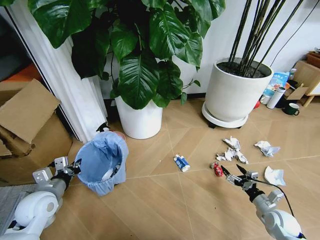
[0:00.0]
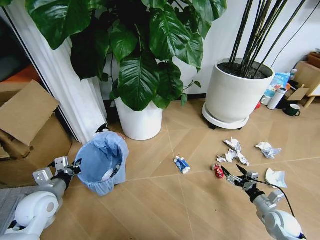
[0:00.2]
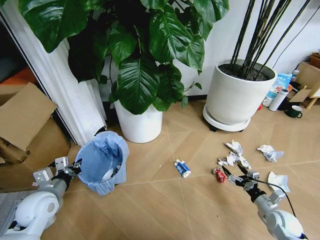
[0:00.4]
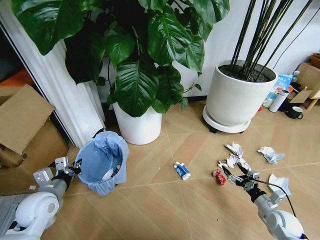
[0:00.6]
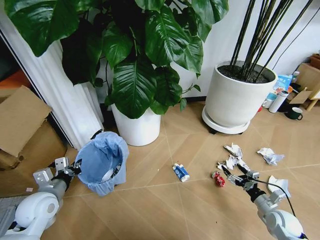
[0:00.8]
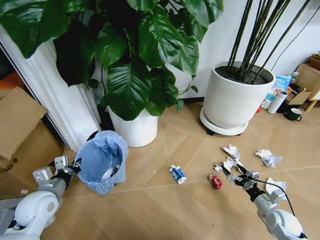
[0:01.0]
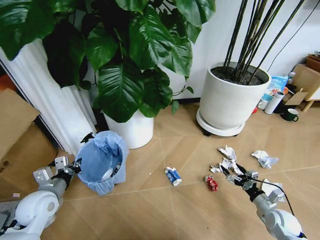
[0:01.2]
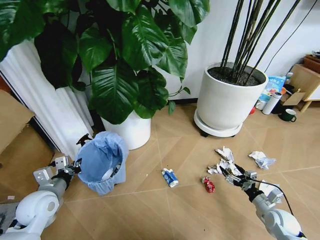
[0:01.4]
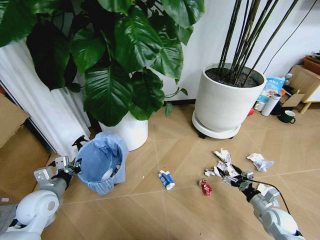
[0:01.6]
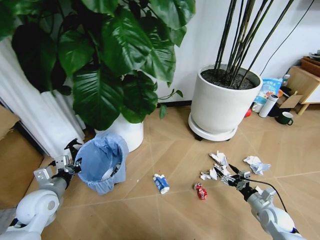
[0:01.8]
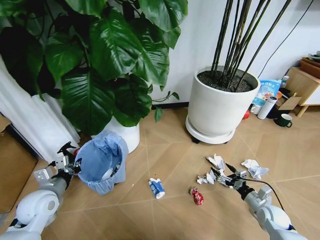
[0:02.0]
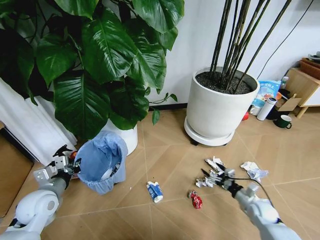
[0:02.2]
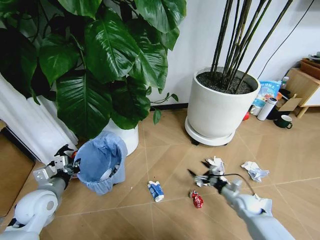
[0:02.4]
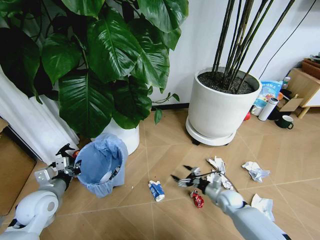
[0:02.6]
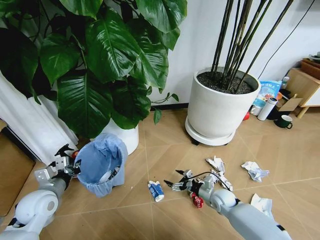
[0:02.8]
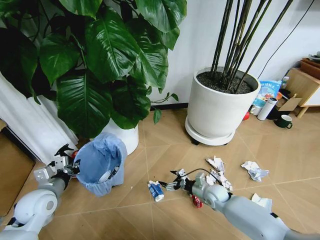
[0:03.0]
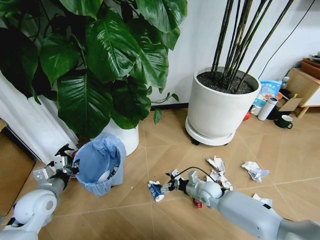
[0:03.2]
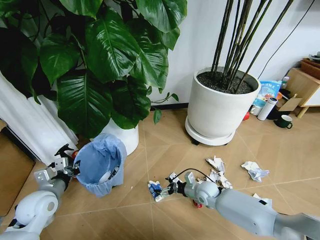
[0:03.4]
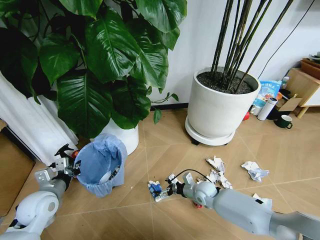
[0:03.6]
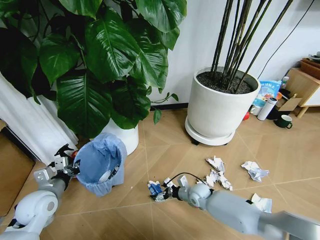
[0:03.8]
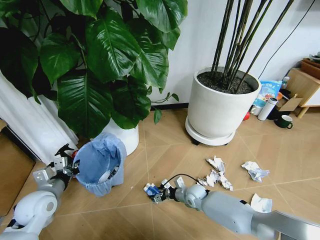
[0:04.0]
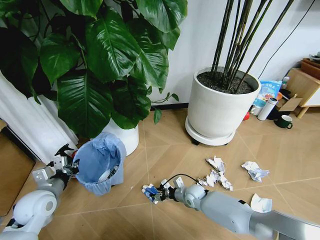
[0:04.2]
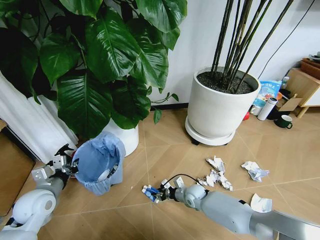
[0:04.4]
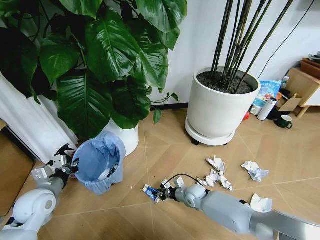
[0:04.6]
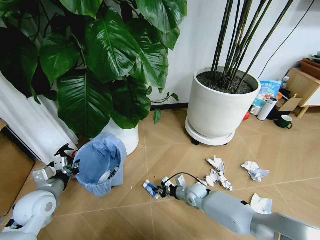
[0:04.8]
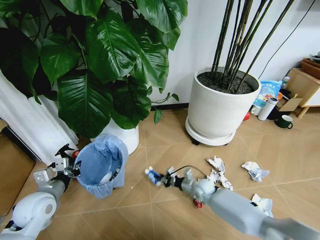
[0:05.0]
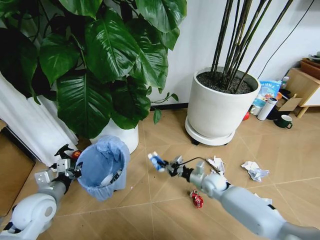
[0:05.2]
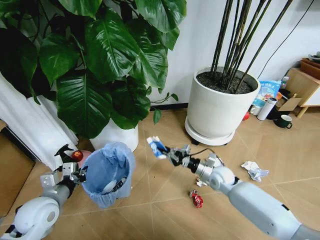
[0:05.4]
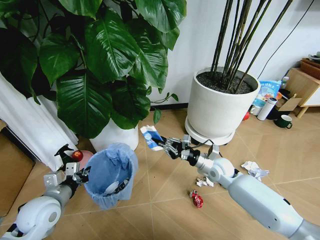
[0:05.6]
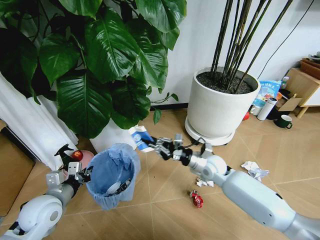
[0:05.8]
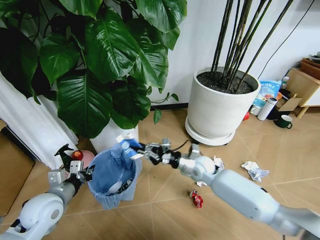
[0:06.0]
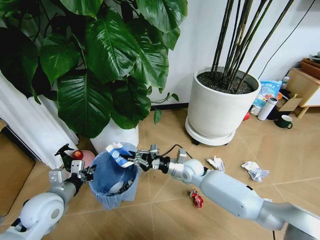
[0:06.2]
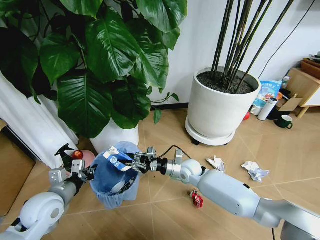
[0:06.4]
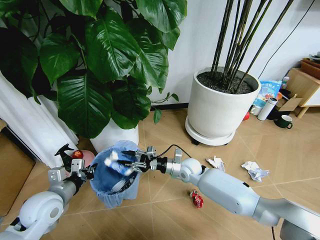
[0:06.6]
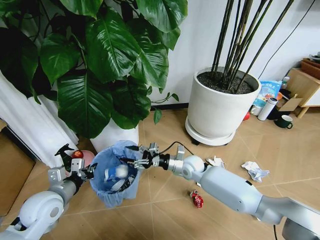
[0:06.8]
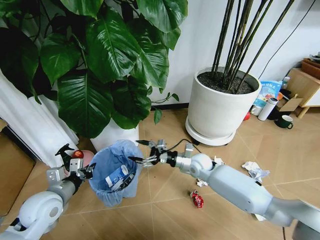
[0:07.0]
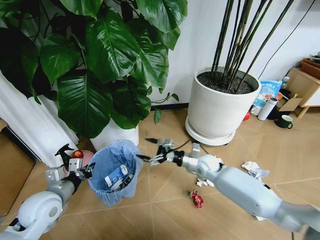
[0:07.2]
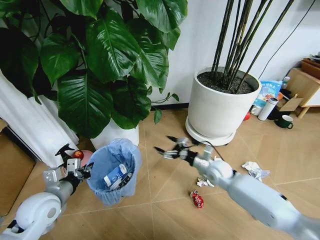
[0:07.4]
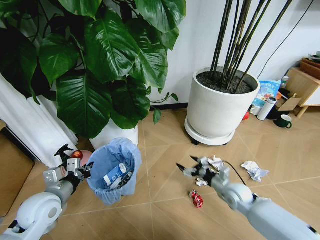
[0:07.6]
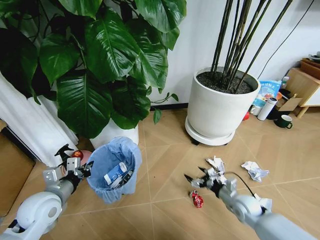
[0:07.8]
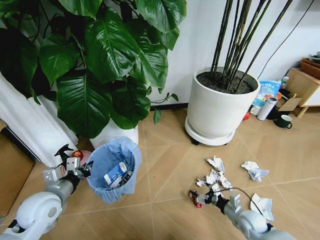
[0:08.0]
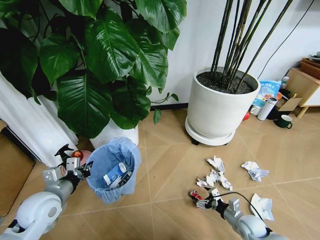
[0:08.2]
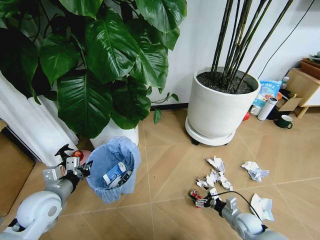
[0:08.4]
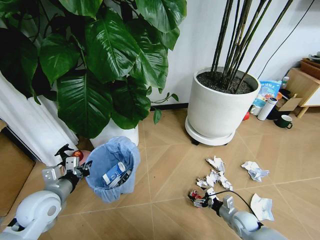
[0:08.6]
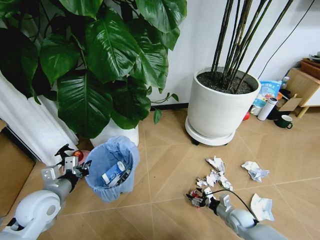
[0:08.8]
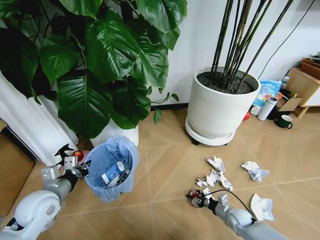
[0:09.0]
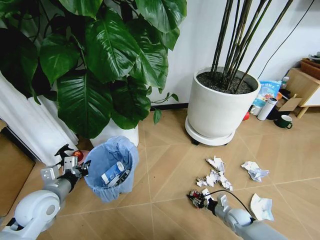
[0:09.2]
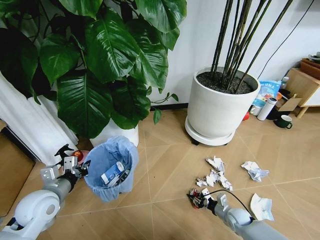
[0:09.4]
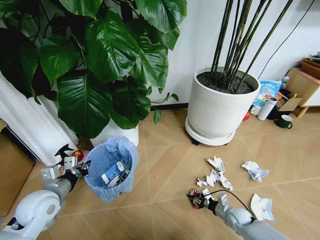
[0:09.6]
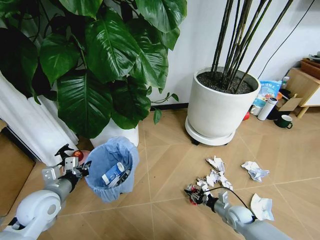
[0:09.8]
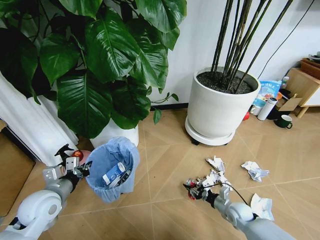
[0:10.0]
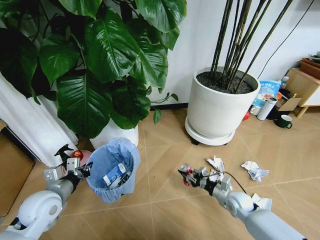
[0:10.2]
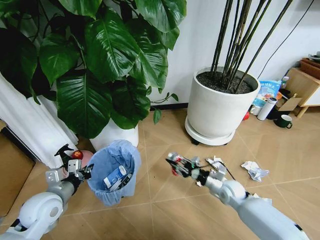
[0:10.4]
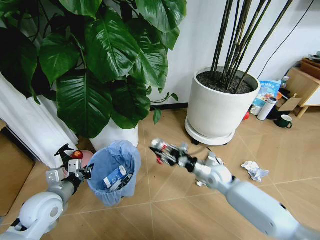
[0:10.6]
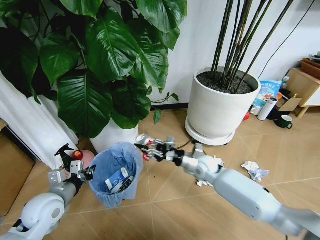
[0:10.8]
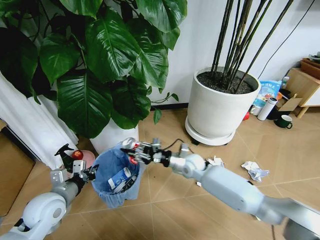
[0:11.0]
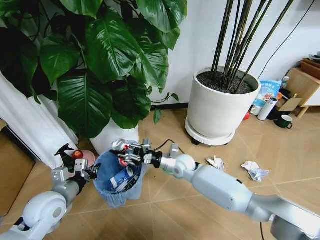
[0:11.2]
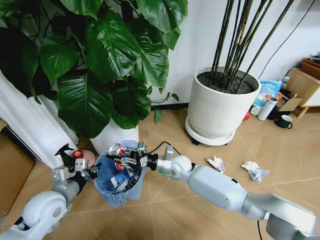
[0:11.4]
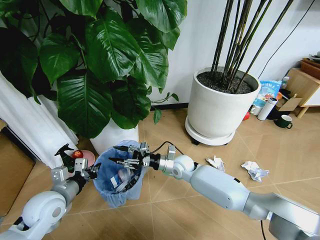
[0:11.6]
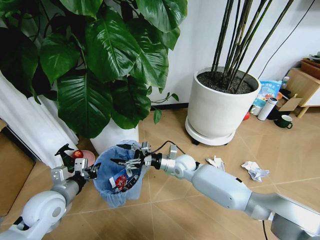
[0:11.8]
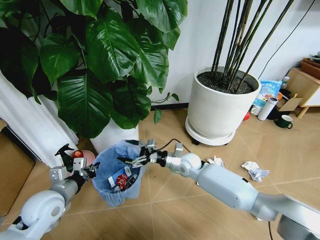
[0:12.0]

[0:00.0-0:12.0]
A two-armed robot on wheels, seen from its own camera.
Task of the whole recording: Pick up the trash bin and place the garbage on the floor into it.
0:01.6 to 0:03.0: The right gripper travels to the left and forward by some 25 cm.
0:03.0 to 0:04.4: The right gripper is displaced to the left by approximately 10 cm, and closes its fingers.
0:04.4 to 0:06.0: The right gripper is displaced upward by approximately 20 cm.
0:06.0 to 0:07.6: The right gripper moves to the right, backward and downward, about 15 cm, and opens.
0:07.6 to 0:09.0: The right gripper shifts about 15 cm downward and backward, and closes up.
0:09.0 to 0:10.4: The right gripper is displaced upward and forward by some 10 cm.
0:10.4 to 0:12.0: The right gripper travels to the left, forward and upward by approximately 20 cm, and opens up.

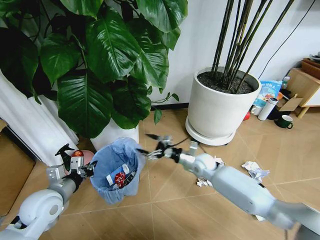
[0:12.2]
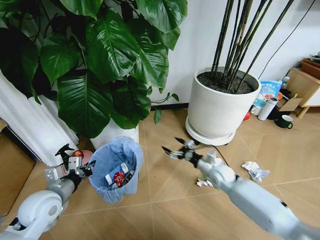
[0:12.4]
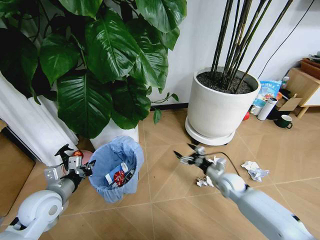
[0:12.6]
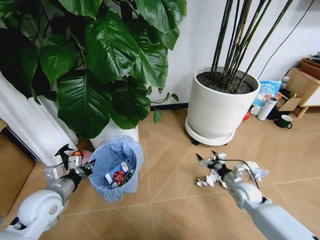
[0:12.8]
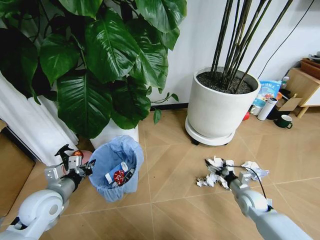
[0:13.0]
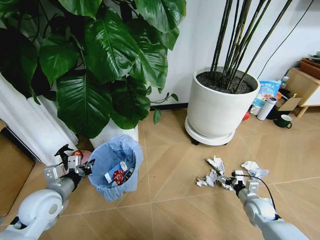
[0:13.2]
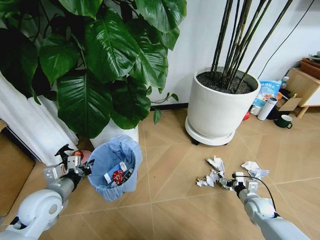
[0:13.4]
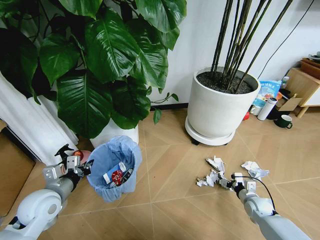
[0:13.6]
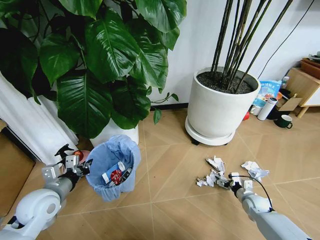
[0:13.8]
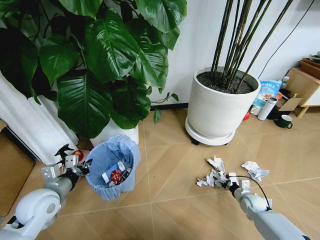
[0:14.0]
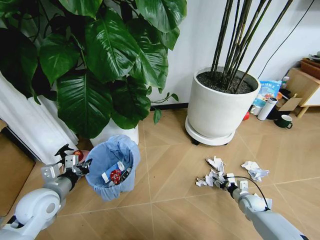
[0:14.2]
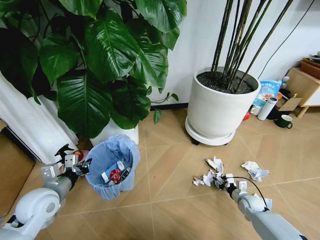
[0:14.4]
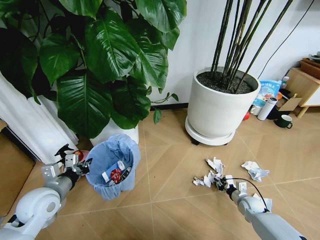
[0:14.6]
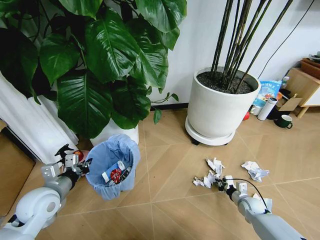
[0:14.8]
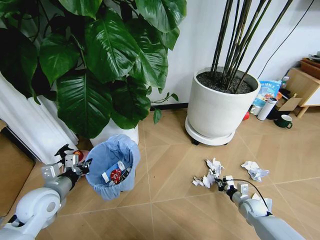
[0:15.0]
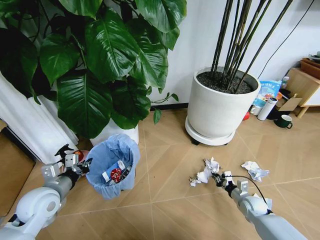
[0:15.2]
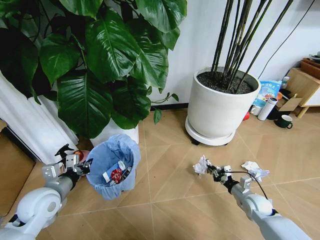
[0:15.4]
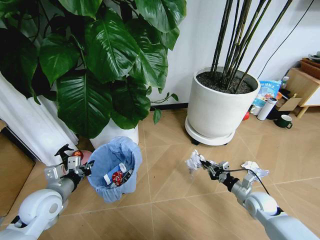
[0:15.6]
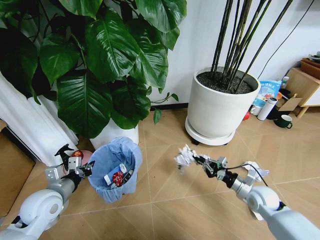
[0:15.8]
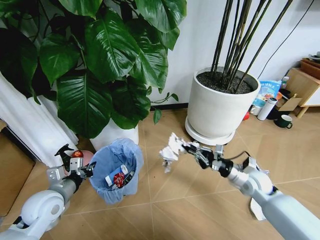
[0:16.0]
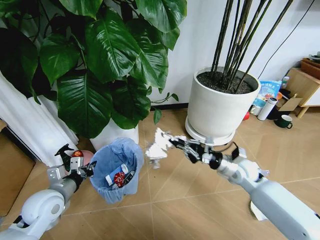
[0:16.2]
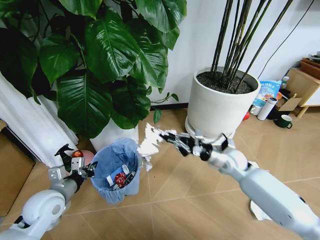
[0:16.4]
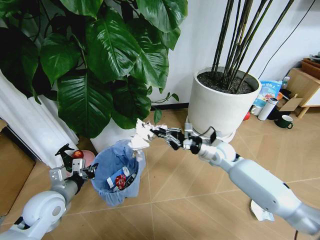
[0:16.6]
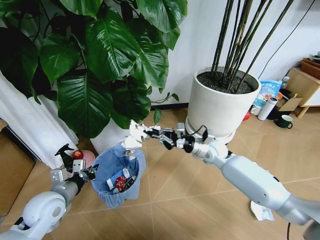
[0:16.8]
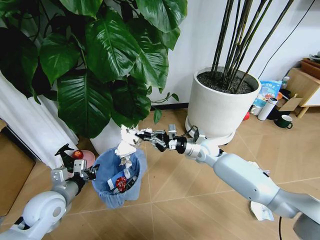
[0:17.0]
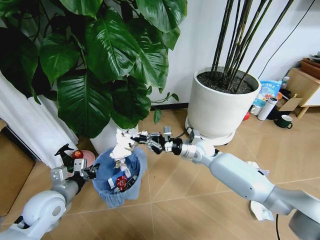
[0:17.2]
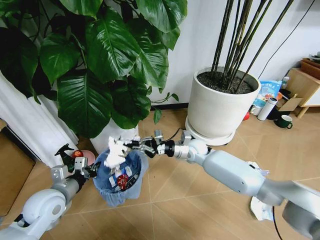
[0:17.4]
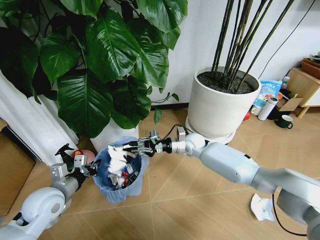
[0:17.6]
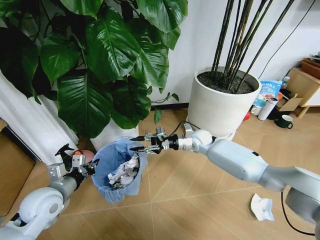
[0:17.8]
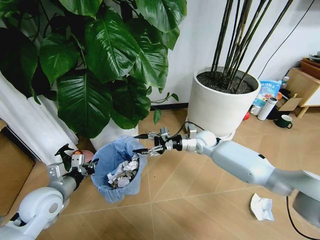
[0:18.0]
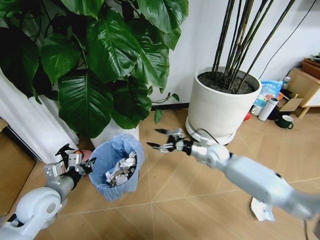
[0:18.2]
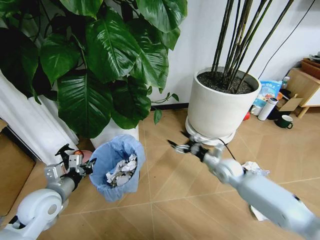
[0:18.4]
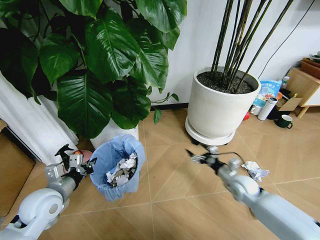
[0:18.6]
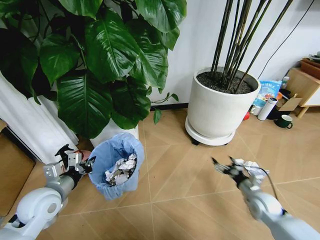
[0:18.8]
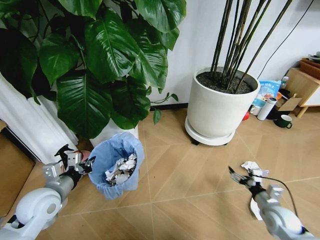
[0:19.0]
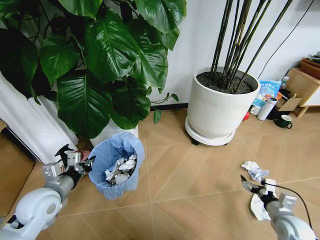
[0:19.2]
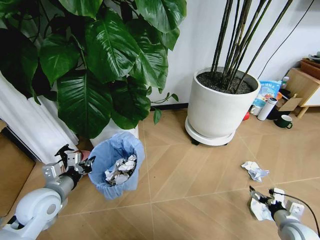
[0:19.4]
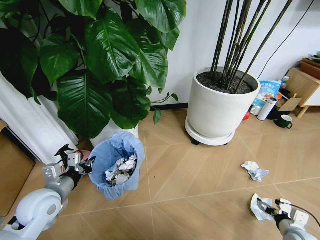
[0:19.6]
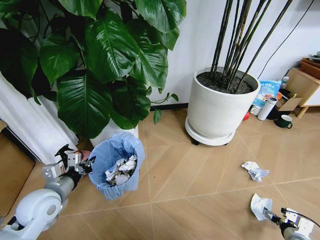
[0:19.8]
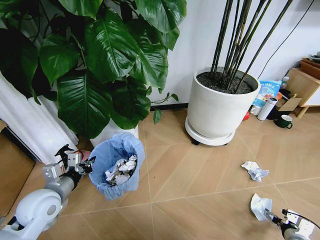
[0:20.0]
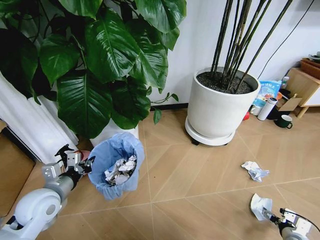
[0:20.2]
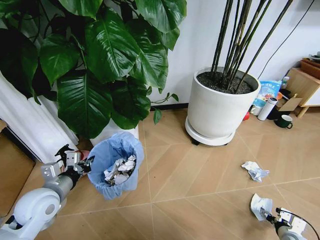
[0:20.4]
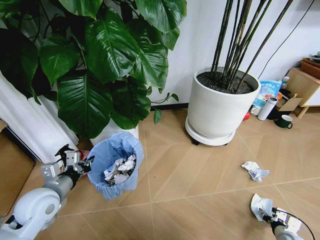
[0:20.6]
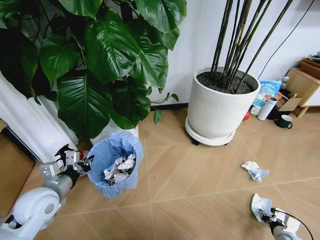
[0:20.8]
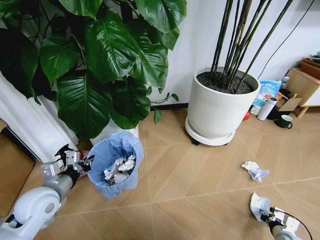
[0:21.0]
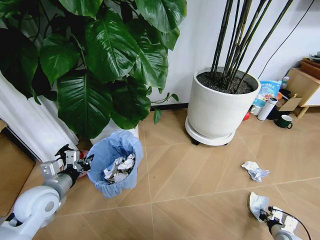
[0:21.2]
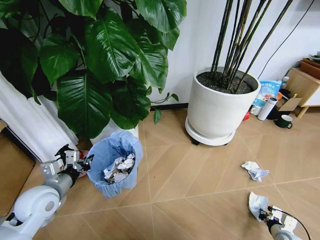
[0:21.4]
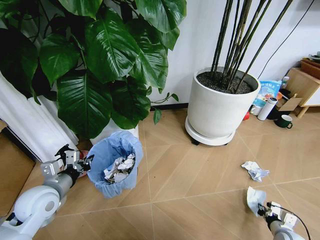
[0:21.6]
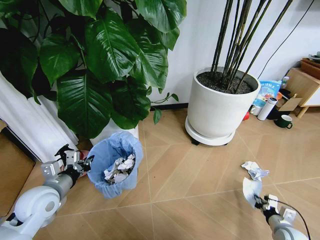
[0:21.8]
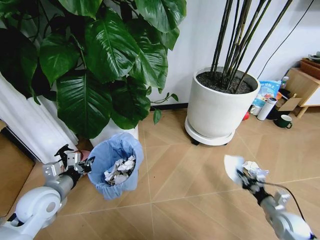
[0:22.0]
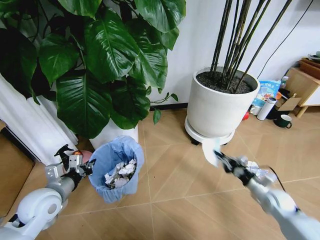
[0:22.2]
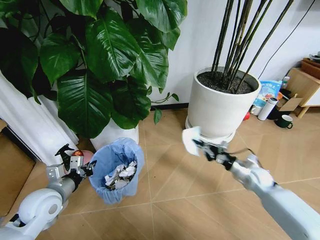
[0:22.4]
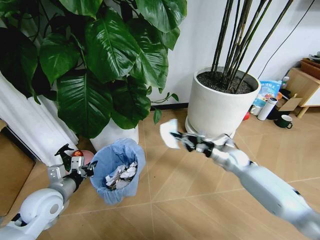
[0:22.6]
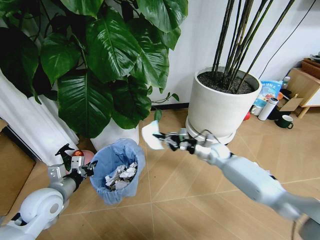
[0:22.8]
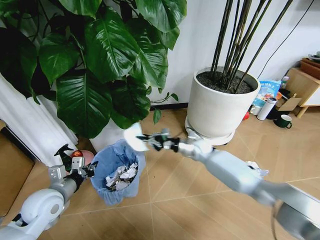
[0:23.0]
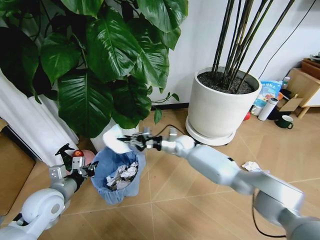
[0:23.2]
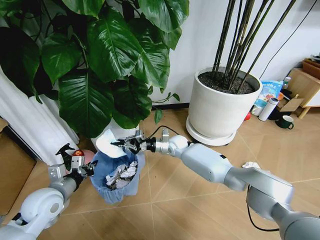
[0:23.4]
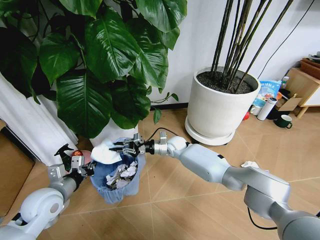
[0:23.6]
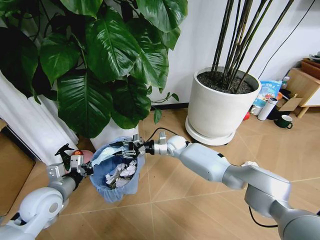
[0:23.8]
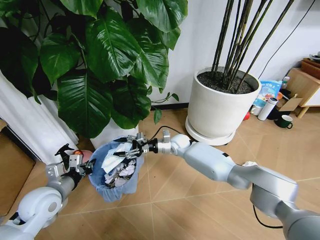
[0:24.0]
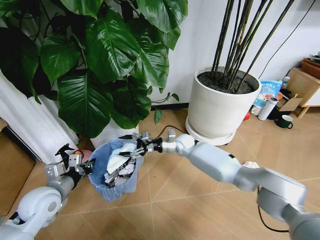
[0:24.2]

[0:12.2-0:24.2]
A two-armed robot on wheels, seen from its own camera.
Task of the whole recording: Pick up the trash bin and place the garbage on the floor into it.
0:12.2 to 0:13.8: The right gripper heads to the right, downward and backward, covering approximately 30 cm.
0:13.8 to 0:15.2: The right gripper closes up.
0:15.2 to 0:16.6: The right gripper goes approximately 30 cm upward, to the left and forward.
0:16.6 to 0:18.2: The right gripper travels to the left and back again, about 10 cm each way, and opens up.
0:18.2 to 0:19.8: The right gripper travels backward, to the right and downward by about 40 cm.
0:19.8 to 0:21.2: The right gripper shifts roughly 5 cm downward, and closes.
0:21.2 to 0:22.6: The right gripper moves forward, upward and to the left, approximately 35 cm.
0:22.6 to 0:24.2: The right gripper goes about 20 cm to the left and forward, and opens.
